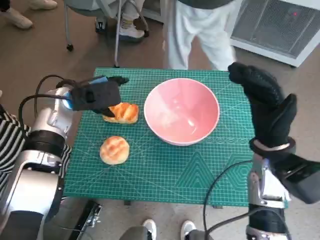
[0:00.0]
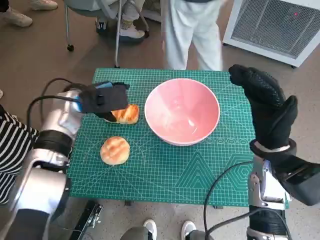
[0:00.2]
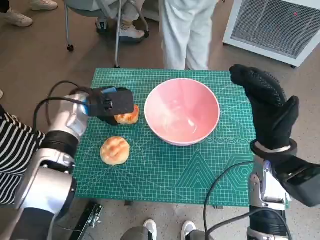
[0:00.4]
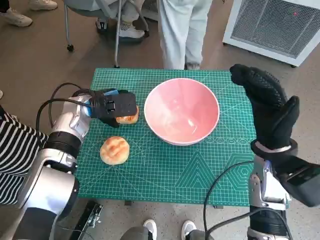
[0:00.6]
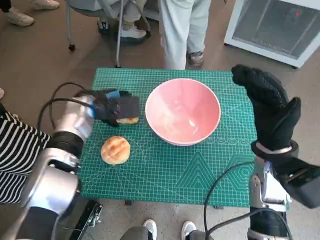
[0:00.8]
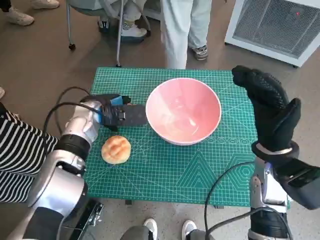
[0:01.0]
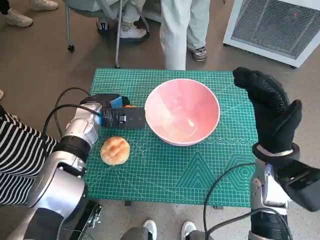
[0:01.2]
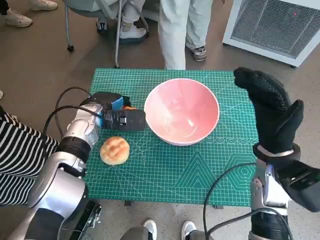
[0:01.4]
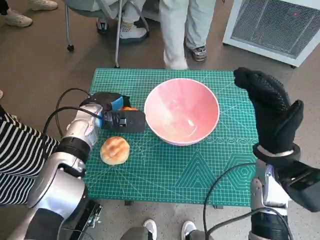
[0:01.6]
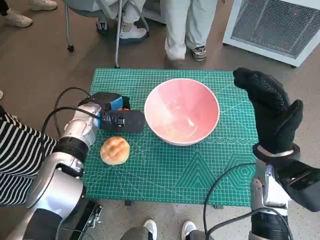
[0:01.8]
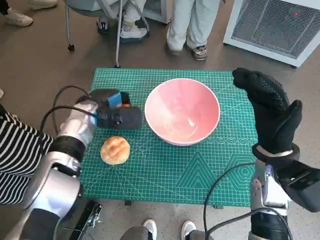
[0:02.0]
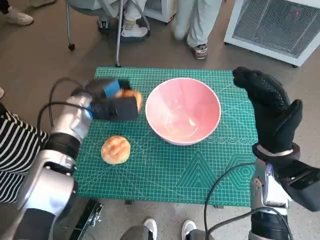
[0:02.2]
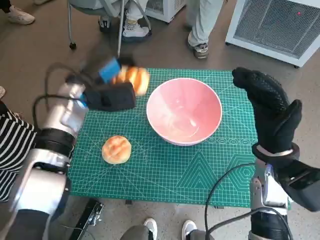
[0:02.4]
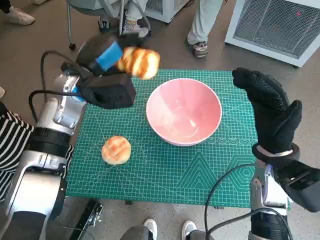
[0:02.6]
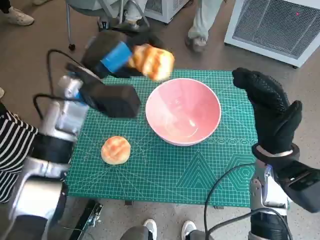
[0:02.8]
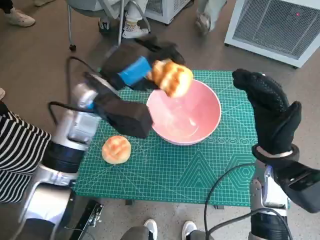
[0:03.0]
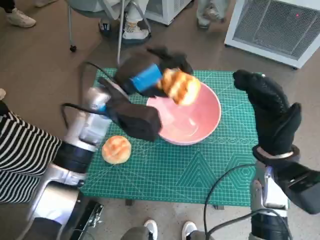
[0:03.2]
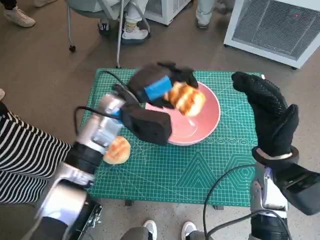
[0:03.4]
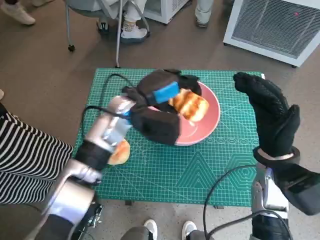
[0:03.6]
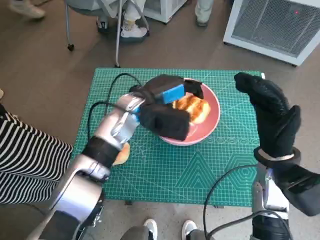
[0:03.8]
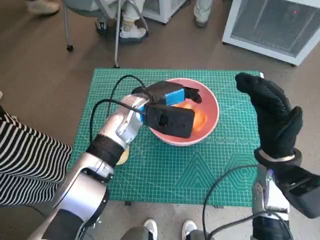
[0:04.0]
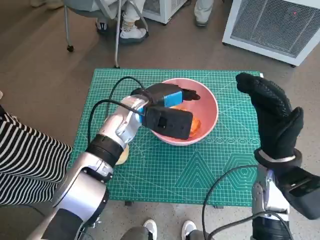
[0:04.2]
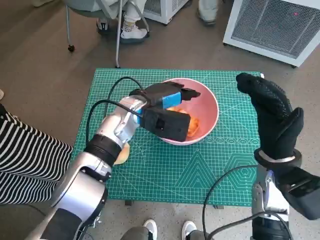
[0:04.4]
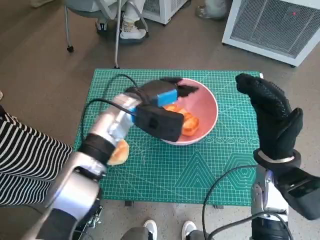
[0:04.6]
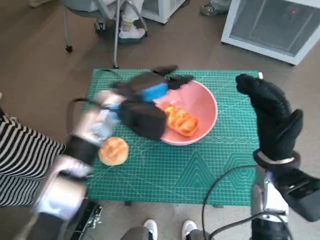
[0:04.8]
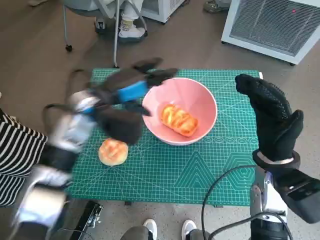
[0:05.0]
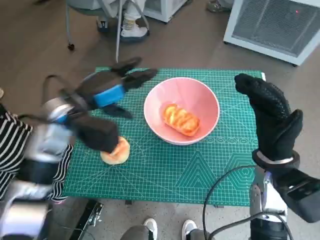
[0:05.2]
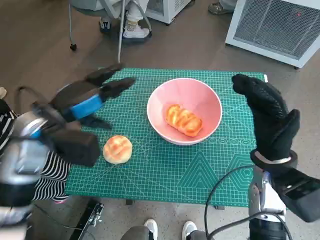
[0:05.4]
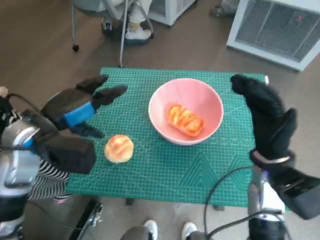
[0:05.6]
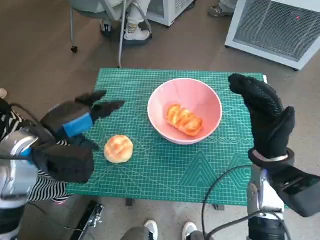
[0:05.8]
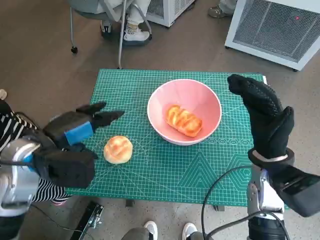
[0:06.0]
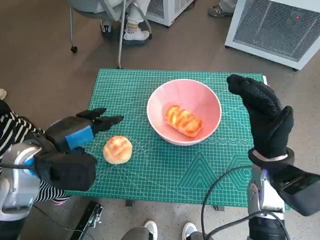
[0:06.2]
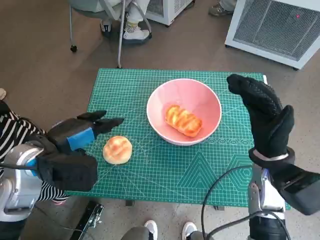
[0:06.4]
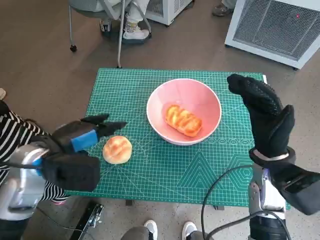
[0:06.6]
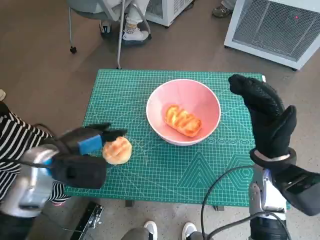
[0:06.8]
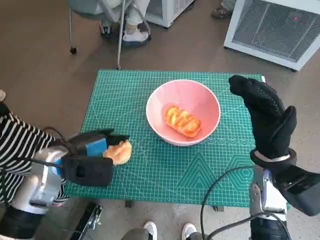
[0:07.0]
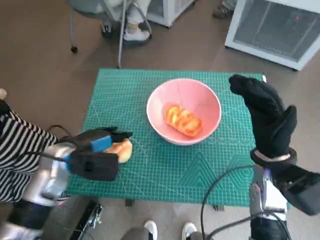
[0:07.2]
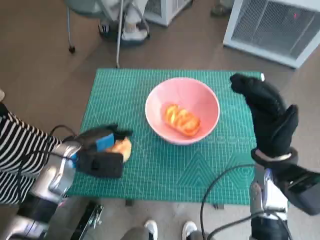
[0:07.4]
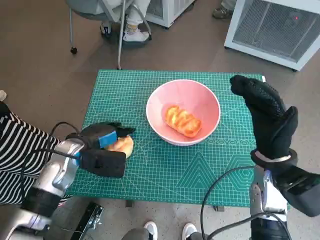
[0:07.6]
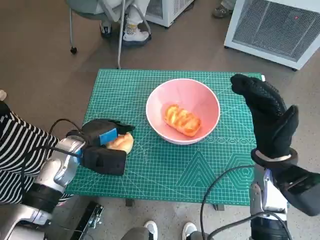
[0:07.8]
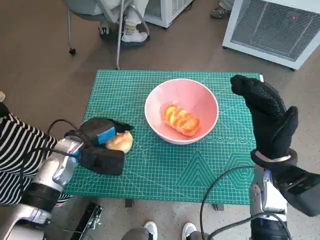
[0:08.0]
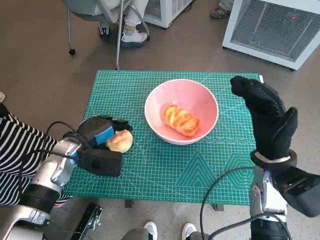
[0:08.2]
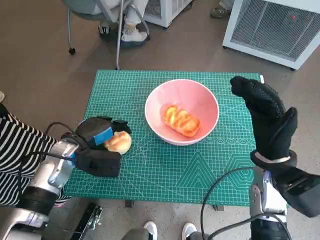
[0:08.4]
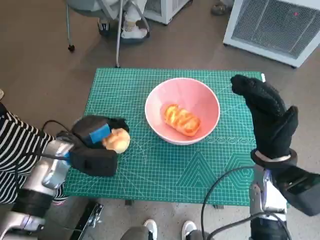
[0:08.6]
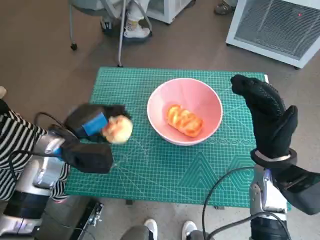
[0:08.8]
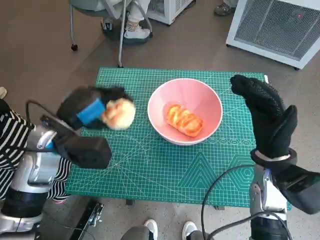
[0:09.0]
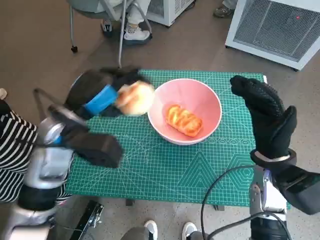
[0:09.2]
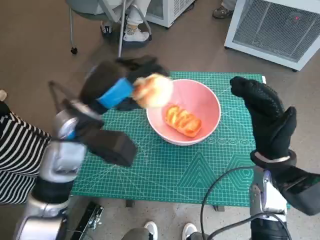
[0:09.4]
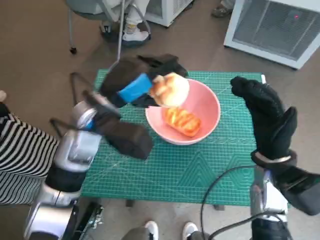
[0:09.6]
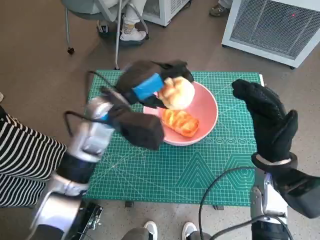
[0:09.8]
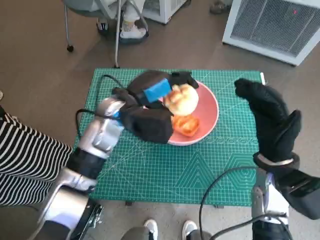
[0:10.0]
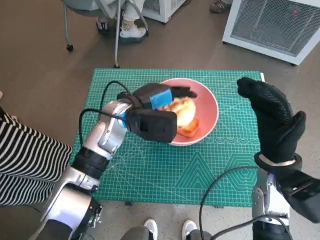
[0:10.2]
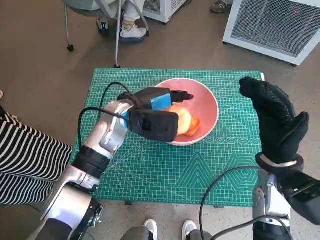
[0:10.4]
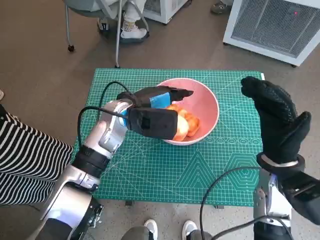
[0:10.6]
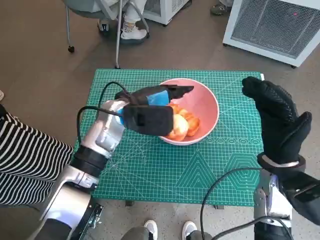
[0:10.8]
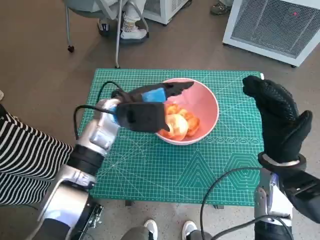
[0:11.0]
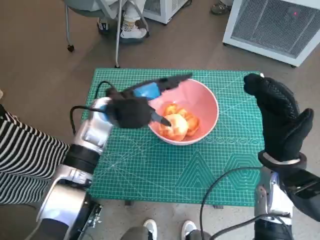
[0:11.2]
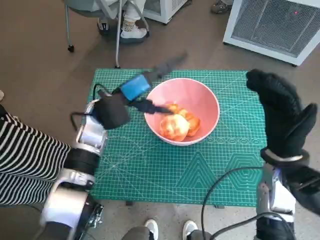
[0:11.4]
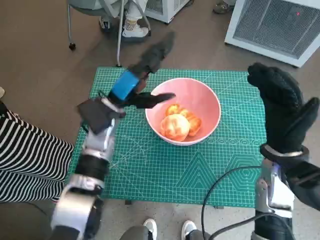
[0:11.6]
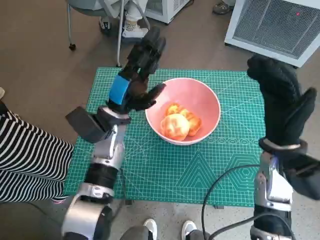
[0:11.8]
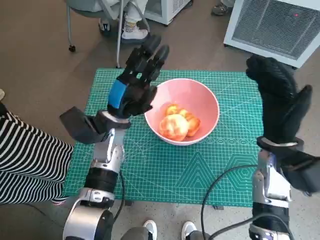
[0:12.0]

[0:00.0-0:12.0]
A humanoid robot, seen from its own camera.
Task of the whole recording: Push the bowl into the center of the table and put the bread into the bowl.
Step, 0:01.6 to 0:04.8: Place the long bread in pink bowl with left hand.
Step, 0:05.0 to 0:08.0: Grasp the round bread with left hand.
Step, 0:08.2 to 0:11.6: Place the round bread in pink bowl with left hand.
0:00.0 to 0:01.6: The left hand moves downward, about 5 cm.
0:01.6 to 0:03.0: The left hand goes some 10 cm upward.
0:03.0 to 0:04.4: The left hand moves downward and to the right, about 10 cm.
0:04.4 to 0:06.0: The left hand is displaced to the left and backward by approximately 20 cm.
0:06.0 to 0:07.6: The left hand is displaced downward by about 10 cm.
0:07.6 to 0:09.0: The left hand goes some 10 cm upward.
0:09.0 to 0:10.4: The left hand is displaced to the right and forward by approximately 15 cm.

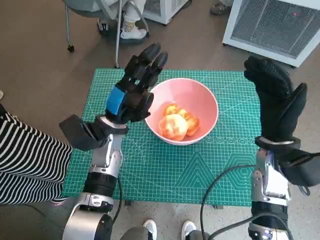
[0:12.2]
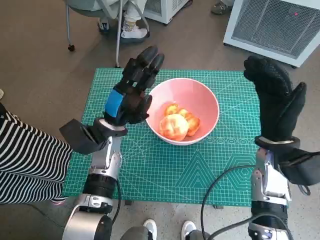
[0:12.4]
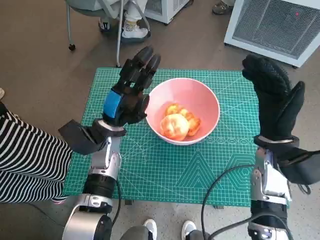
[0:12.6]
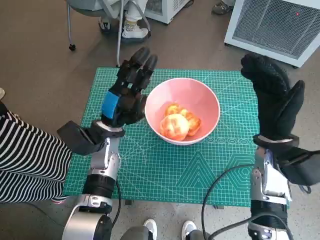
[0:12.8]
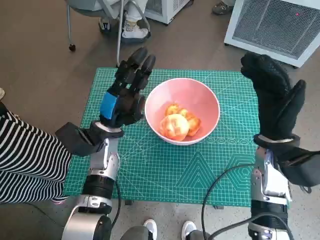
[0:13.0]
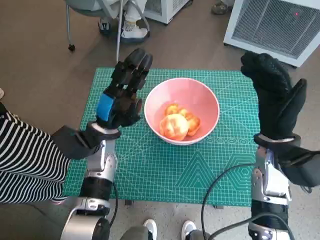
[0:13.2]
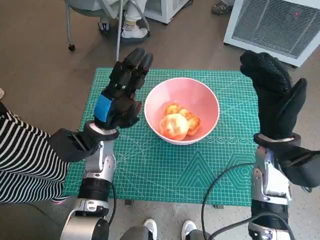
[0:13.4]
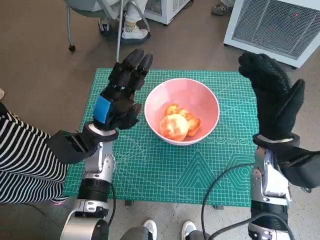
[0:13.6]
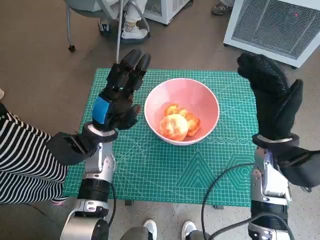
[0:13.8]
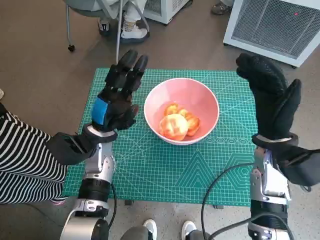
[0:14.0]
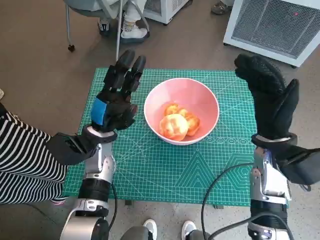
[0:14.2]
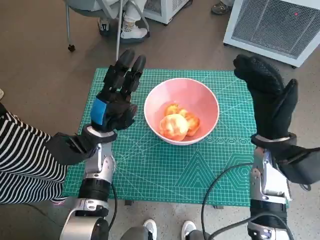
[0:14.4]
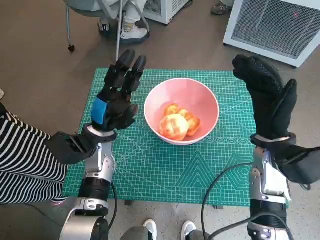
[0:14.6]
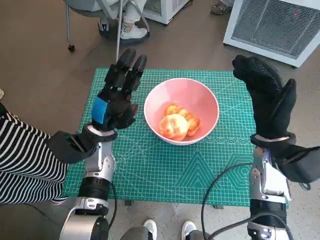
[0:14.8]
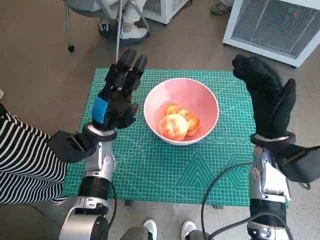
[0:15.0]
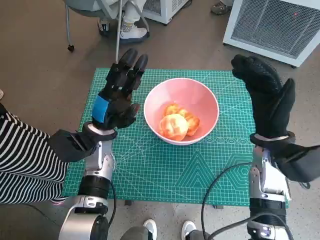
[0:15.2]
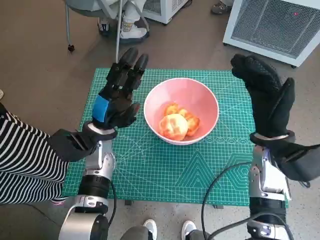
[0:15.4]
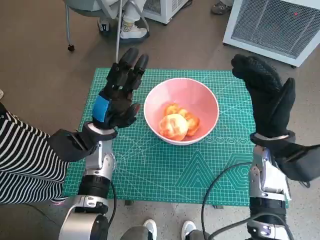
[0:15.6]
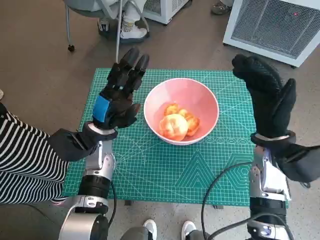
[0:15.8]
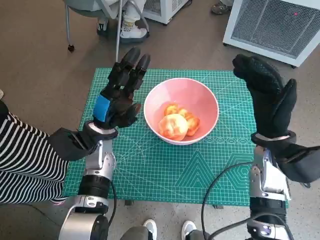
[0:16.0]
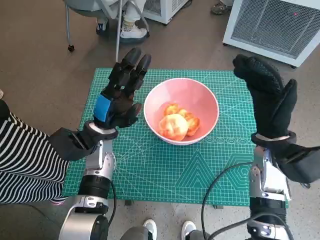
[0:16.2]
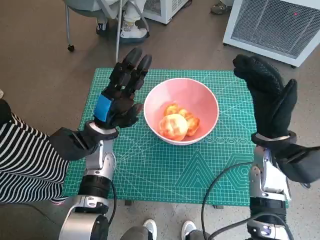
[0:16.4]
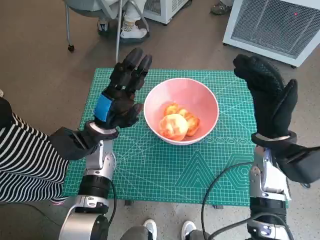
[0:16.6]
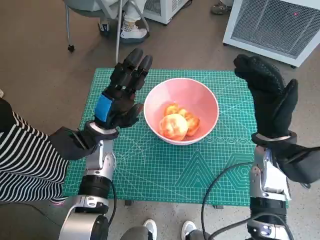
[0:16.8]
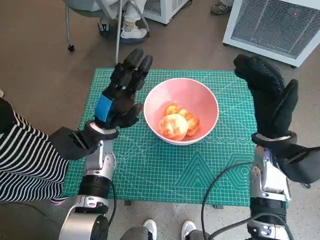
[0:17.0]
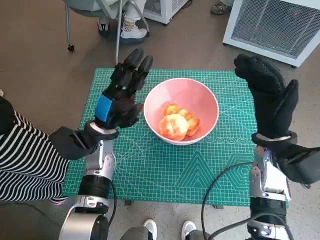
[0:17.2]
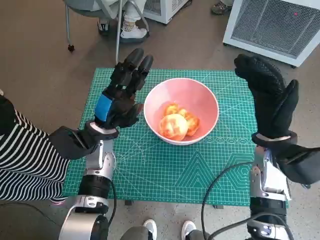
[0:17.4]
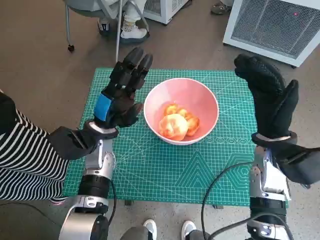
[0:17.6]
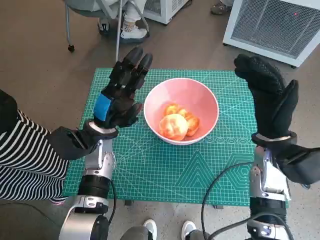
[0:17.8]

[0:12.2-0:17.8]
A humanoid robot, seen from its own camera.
Task of the whole recording: Push the bowl into the center of the table and put the bread into the bowl.
0:12.2 to 0:13.6: There are only small adjustments of the hands.
0:13.6 to 0:17.8: Both hands stay about where they are.
